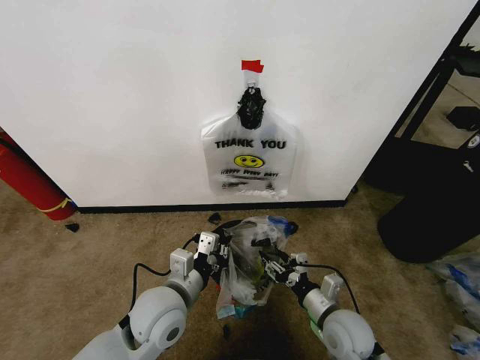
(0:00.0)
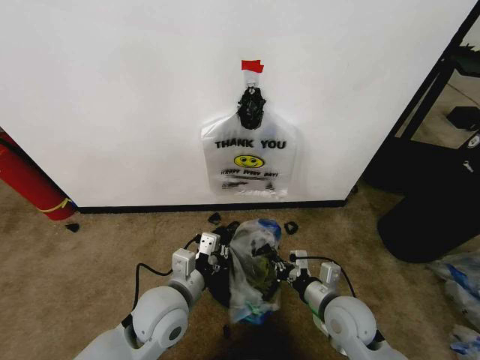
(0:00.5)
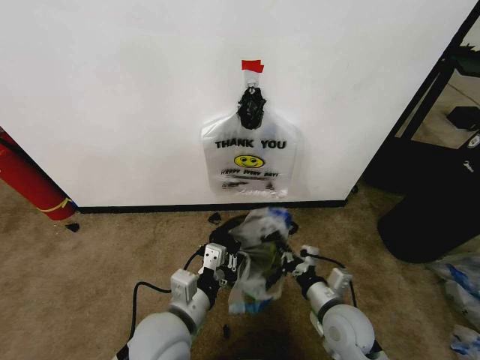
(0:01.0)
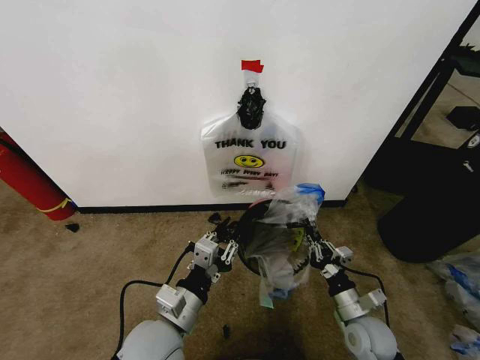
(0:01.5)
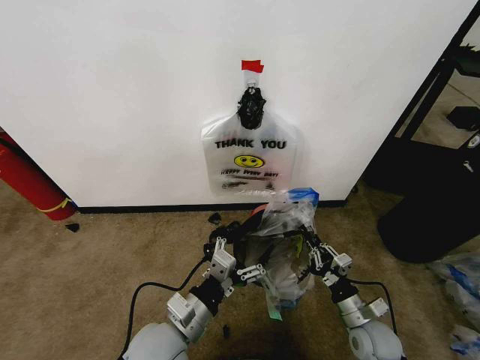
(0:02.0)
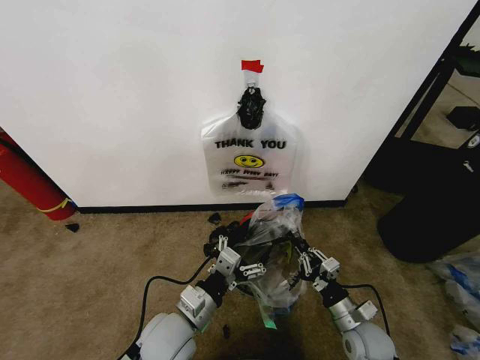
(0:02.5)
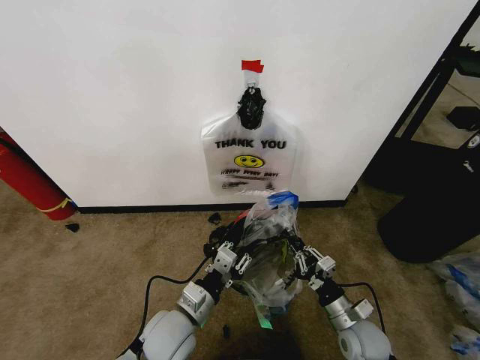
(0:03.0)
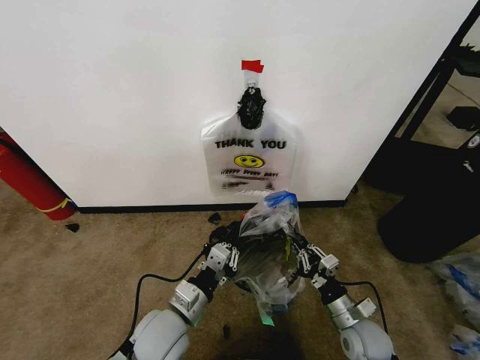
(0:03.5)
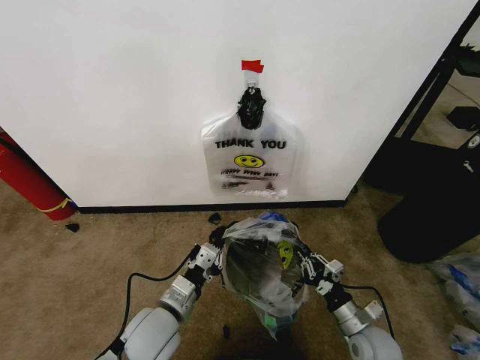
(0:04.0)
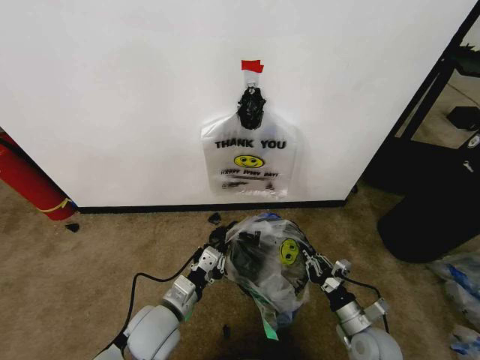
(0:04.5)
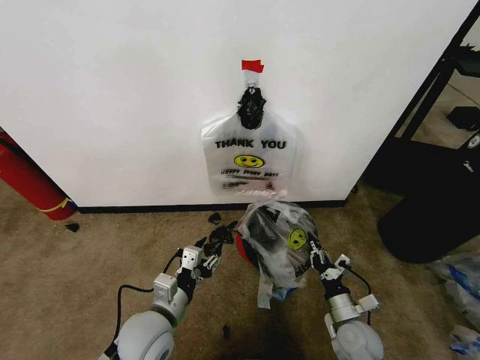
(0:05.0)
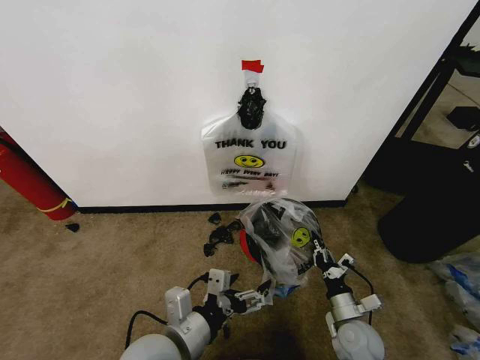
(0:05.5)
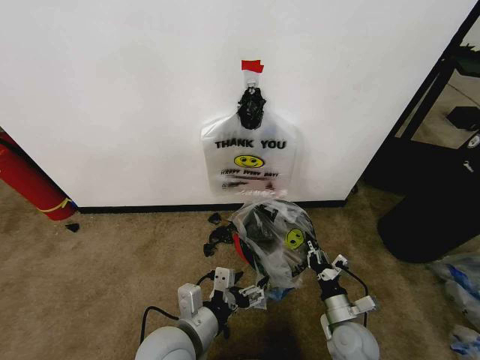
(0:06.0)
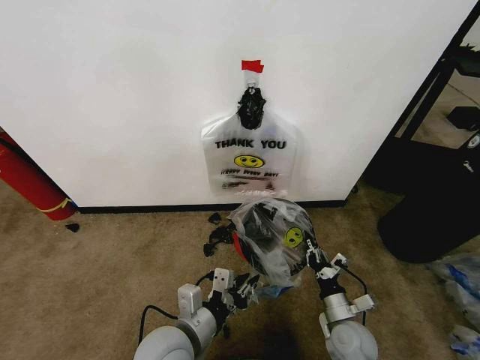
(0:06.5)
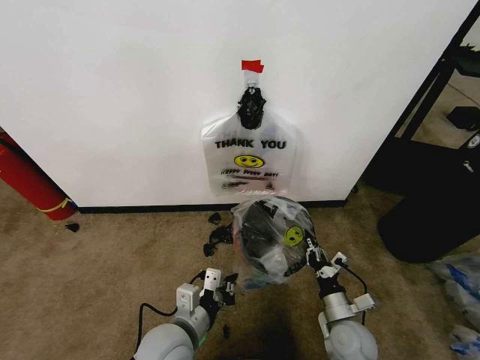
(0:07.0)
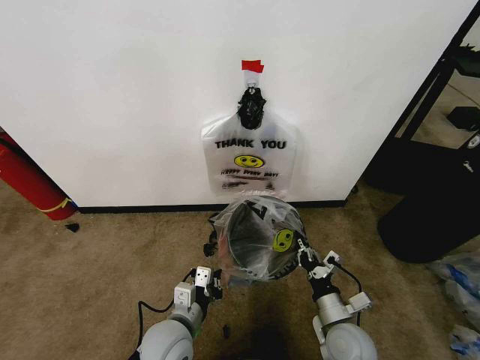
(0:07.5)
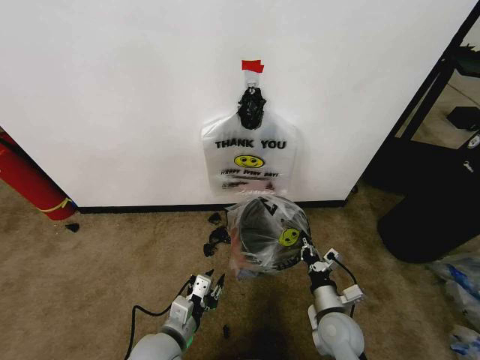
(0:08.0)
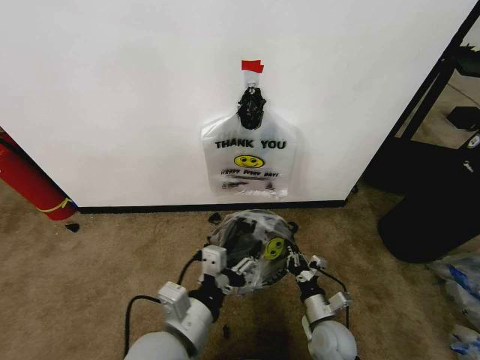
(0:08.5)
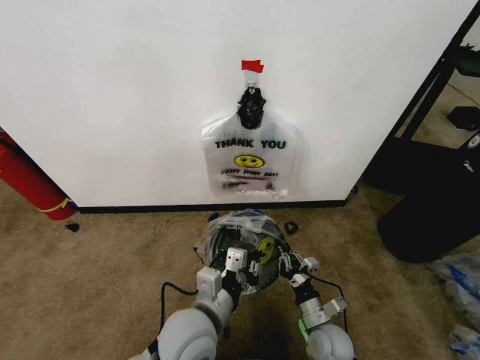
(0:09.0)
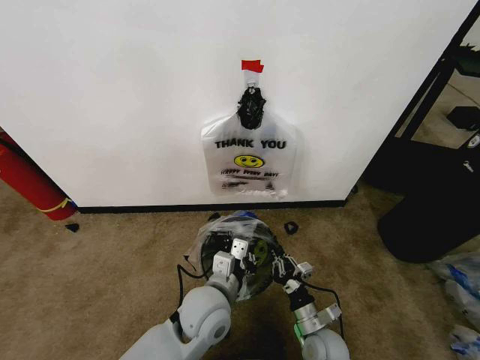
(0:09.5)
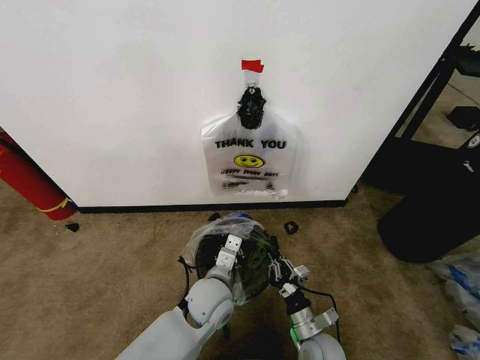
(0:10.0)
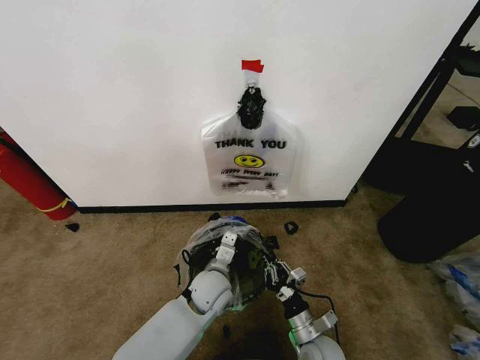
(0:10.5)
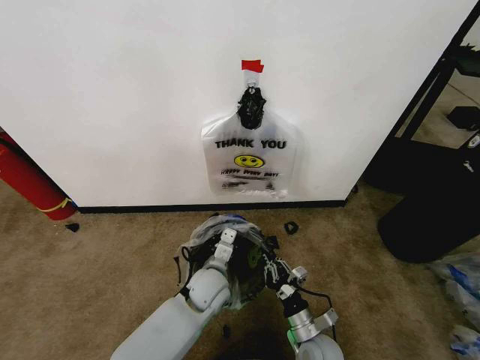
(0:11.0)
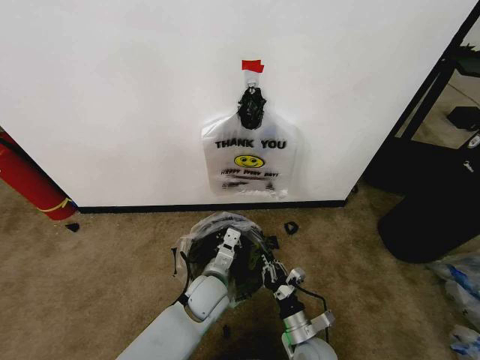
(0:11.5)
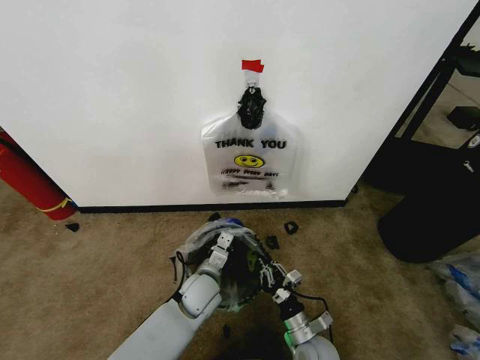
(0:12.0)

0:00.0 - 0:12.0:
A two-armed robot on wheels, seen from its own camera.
Task of the whole recording: Pick up the garbage bag from the wall and place it over the trash bin.
0:00.0 - 0:02.0: The left gripper goes approximately 5 cm backward, and opens up, while the right gripper goes some 10 cm to the right and downward, and closes up.
0:02.0 - 0:04.0: The left gripper closes up.
0:04.0 - 0:06.0: The left gripper changes place by about 5 cm, and opens up.
0:06.0 - 0:08.0: The right gripper changes place by about 5 cm; the left gripper is displaced downward by about 10 cm, and closes.
0:08.0 - 0:10.0: The left gripper moves to the right and forward, about 15 cm, travels upward and back again, about 15 cm each way, and closes up; the right gripper shifts approximately 5 cm downward.
0:10.0 - 0:12.0: The left gripper shifts approximately 5 cm downward.

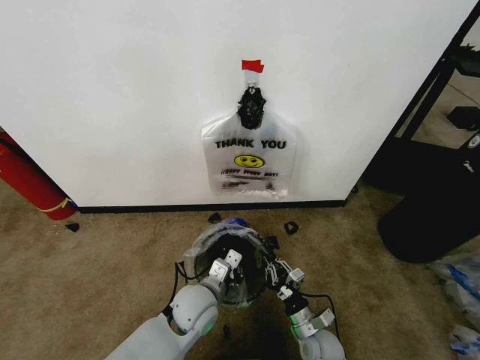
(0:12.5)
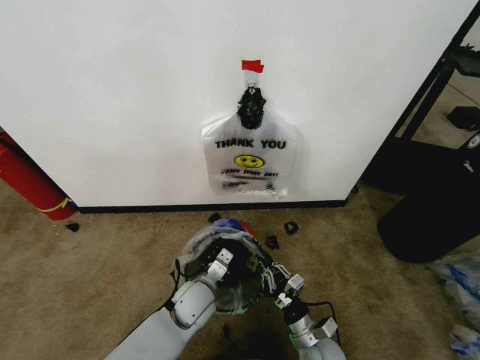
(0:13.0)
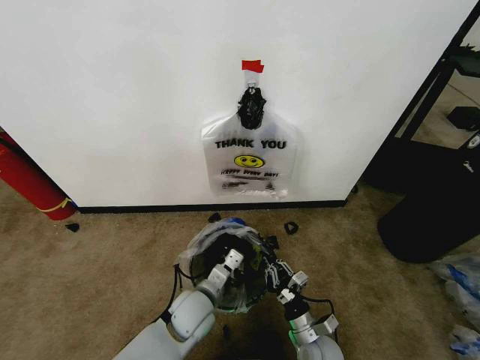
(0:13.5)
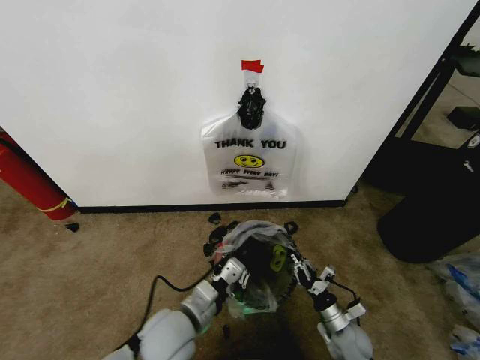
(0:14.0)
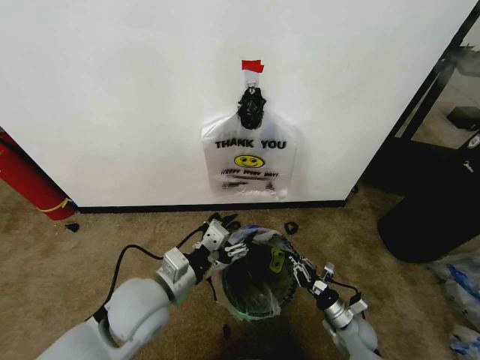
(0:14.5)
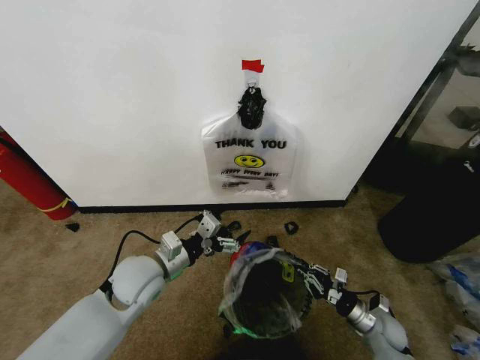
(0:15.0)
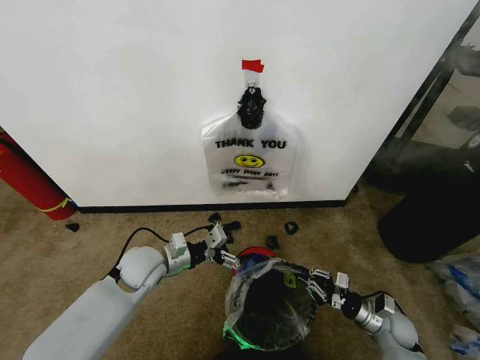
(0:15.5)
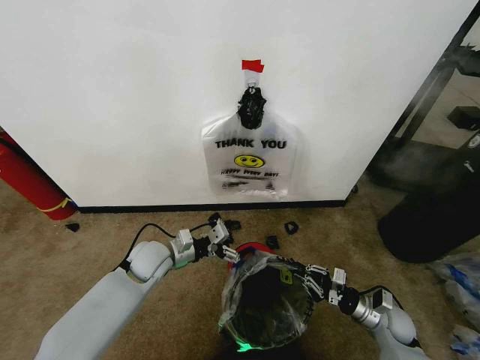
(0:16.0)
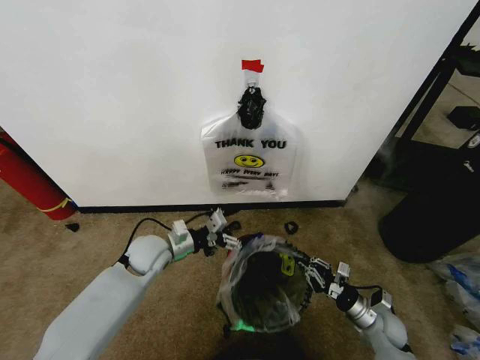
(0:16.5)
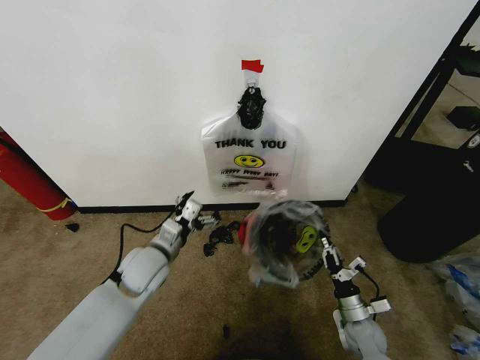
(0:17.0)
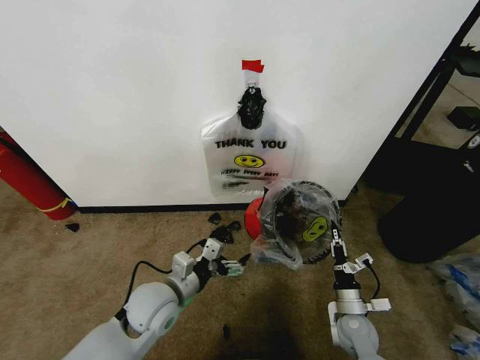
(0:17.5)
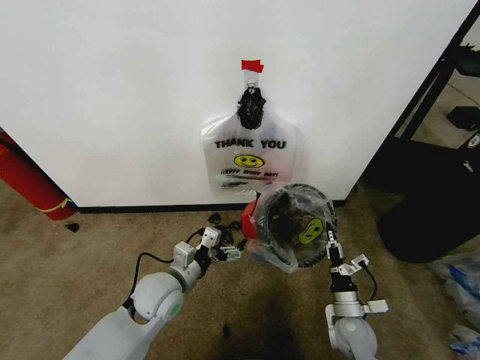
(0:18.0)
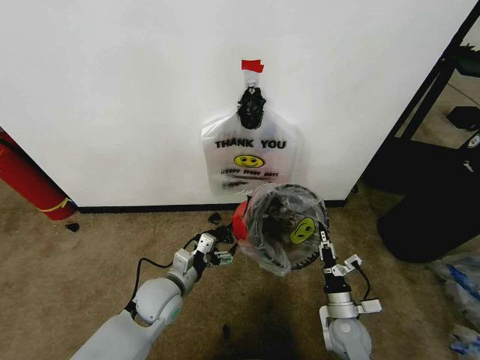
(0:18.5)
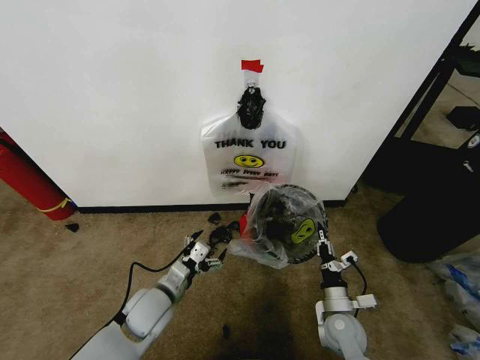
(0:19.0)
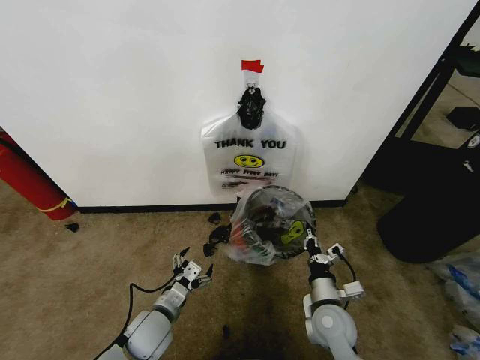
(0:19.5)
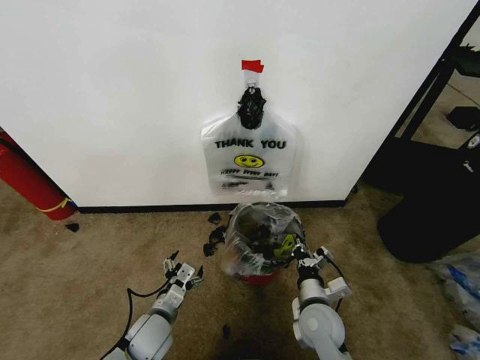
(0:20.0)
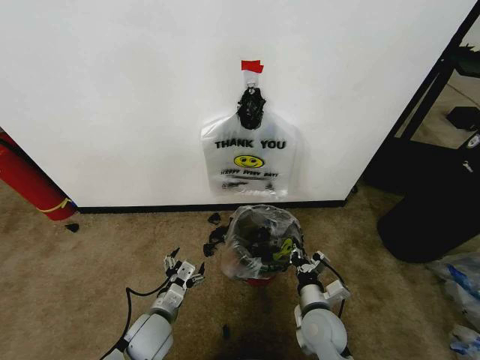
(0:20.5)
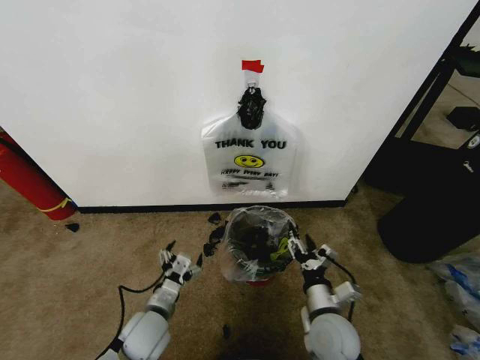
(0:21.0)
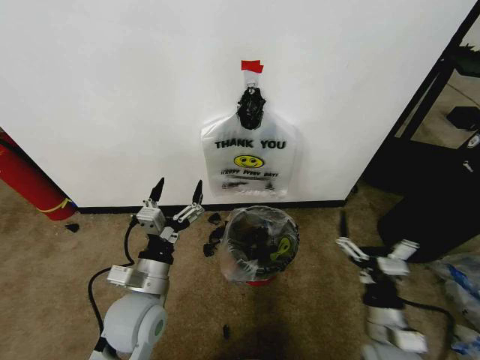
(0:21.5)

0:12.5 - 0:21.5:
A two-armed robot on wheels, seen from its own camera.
Task of the whole recording: Pick up the garbage bag from the wall and place it over the trash bin.
0:12.5 - 0:14.5: The left gripper moves upward and to the left, some 15 cm, and opens its fingers, while the right gripper shifts approximately 10 cm to the right.
0:14.5 - 0:17.0: The right gripper moves about 10 cm to the right and comes back, while the left gripper goes some 10 cm forward and downward.
0:17.0 - 0:19.5: The left gripper goes approximately 15 cm downward and backward. The right gripper shifts about 15 cm to the left and upward.
0:19.5 - 0:21.5: The right gripper goes about 15 cm backward, upward and to the right, and opens up. Meanwhile the left gripper goes approximately 15 cm upward.

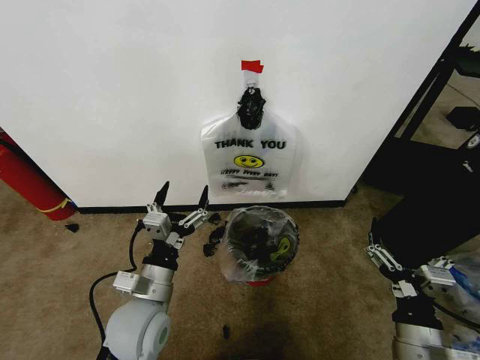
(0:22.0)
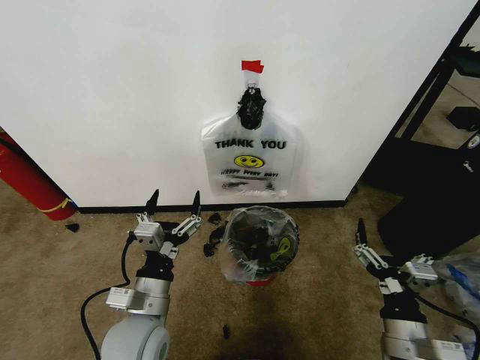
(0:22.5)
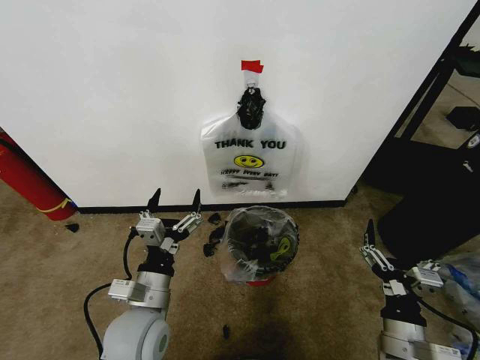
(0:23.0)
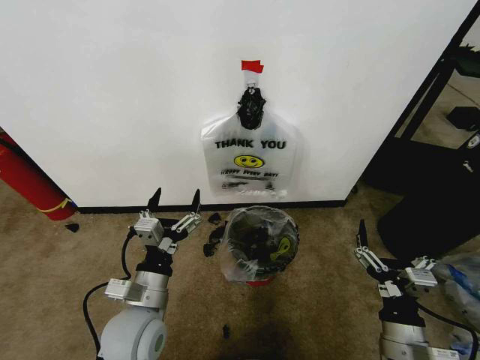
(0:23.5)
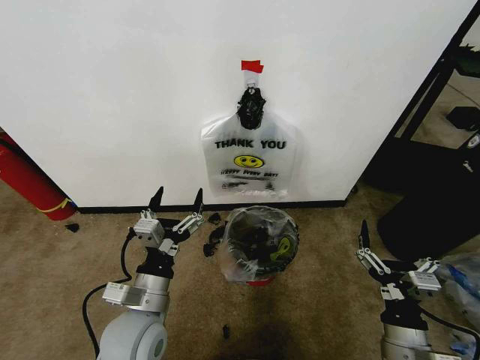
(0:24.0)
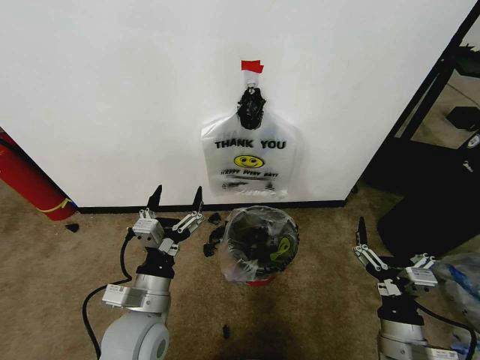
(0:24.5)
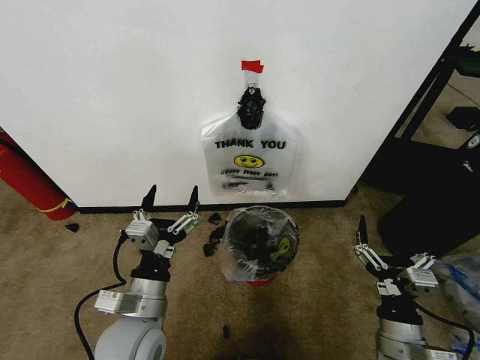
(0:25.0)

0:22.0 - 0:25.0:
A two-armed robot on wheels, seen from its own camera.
Task of the whole recording: Pick up the garbage bag from the wall and place it over the trash bin.
0:22.0 - 0:25.0: The grippers stay close to where they were, moving slightly.

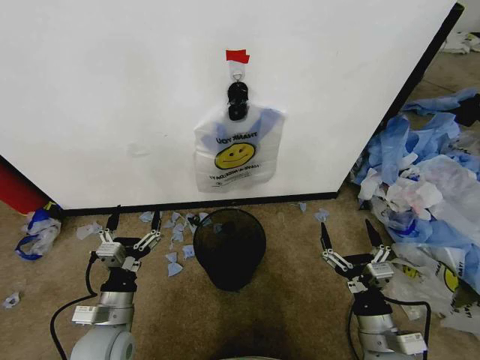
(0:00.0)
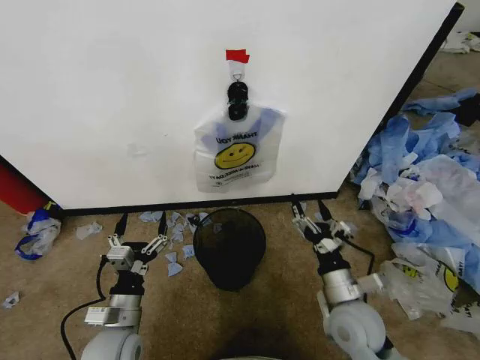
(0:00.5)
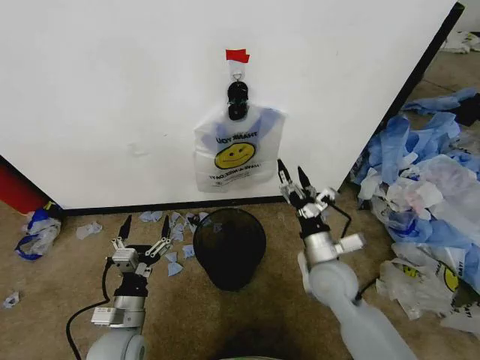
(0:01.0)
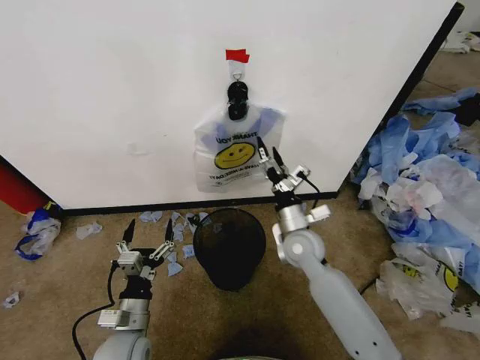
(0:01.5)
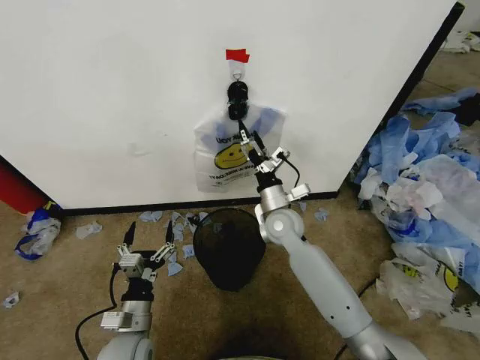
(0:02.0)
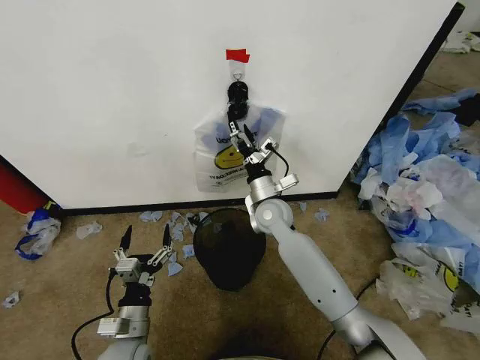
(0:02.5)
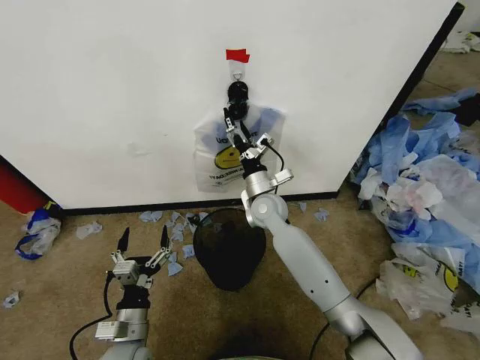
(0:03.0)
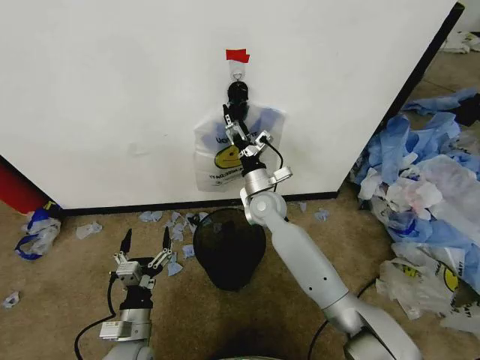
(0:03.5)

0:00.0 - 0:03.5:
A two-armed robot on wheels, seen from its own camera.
Task of the whole recording: Pick up the garbage bag from the wall and place it over the trash bin.
0:02.0 - 0:03.5: The right gripper moves forward, about 5 cm.
